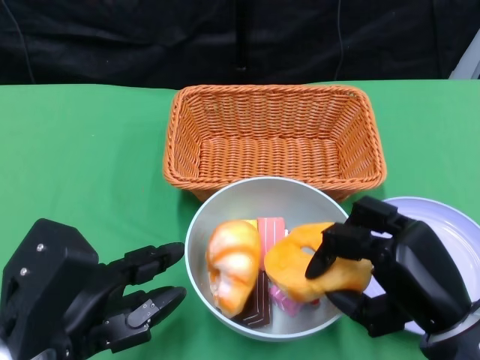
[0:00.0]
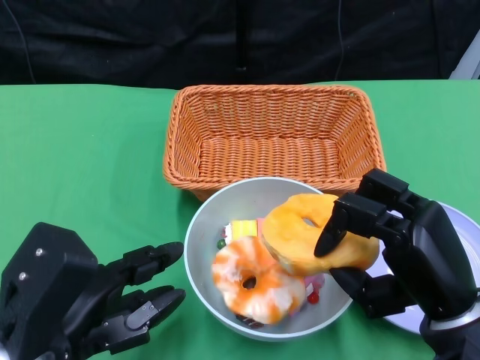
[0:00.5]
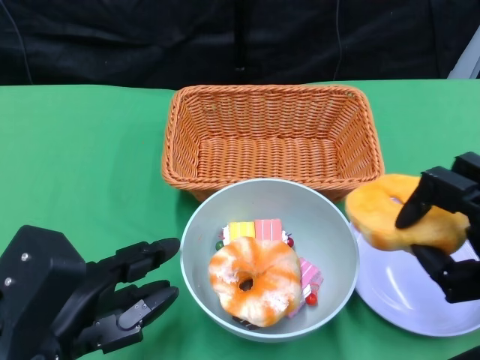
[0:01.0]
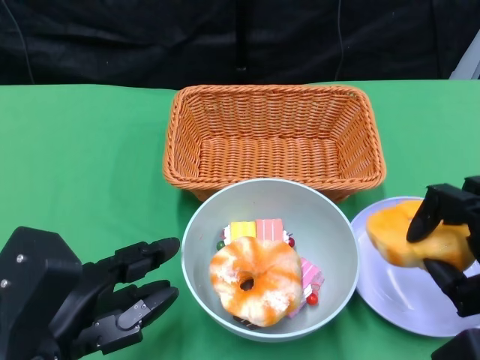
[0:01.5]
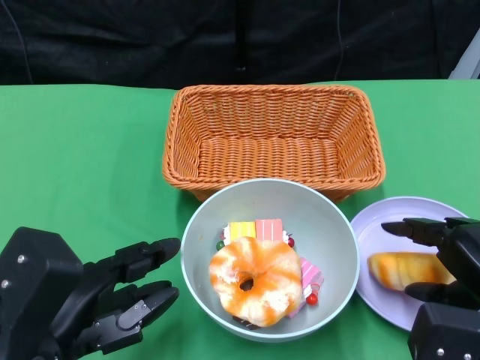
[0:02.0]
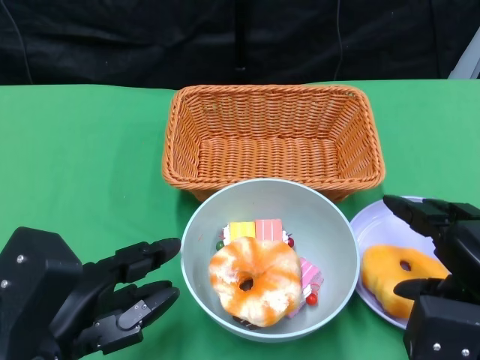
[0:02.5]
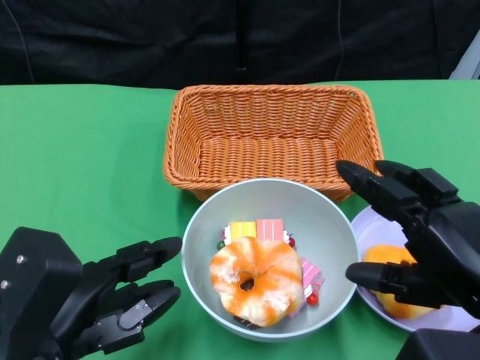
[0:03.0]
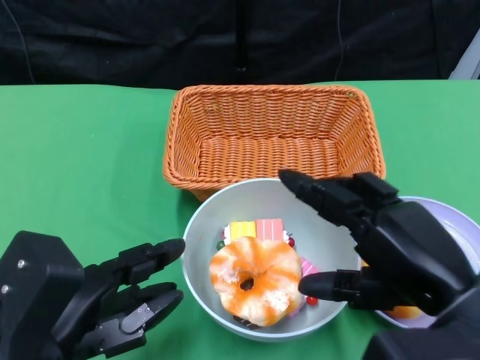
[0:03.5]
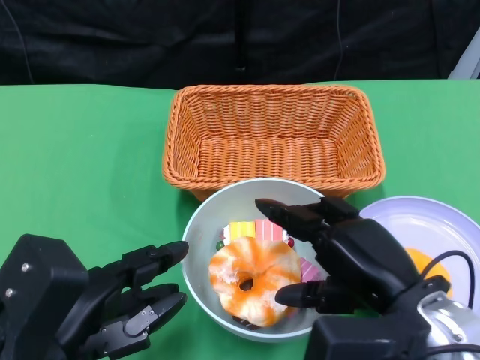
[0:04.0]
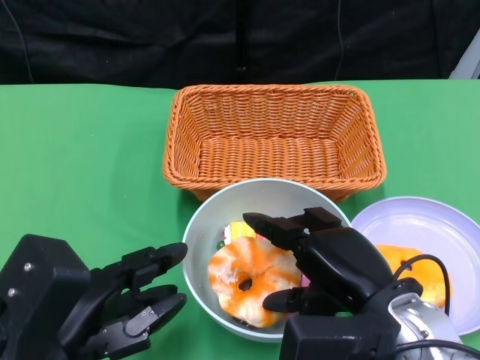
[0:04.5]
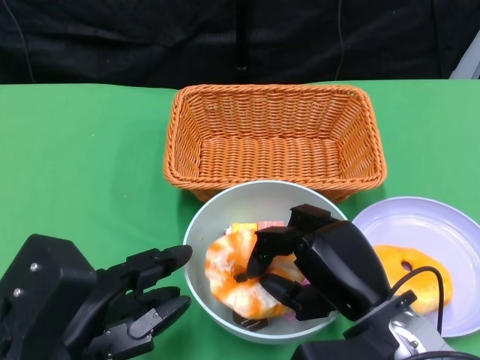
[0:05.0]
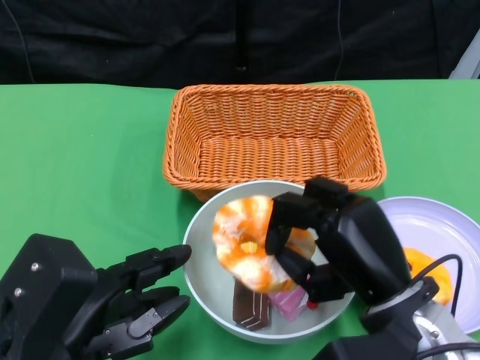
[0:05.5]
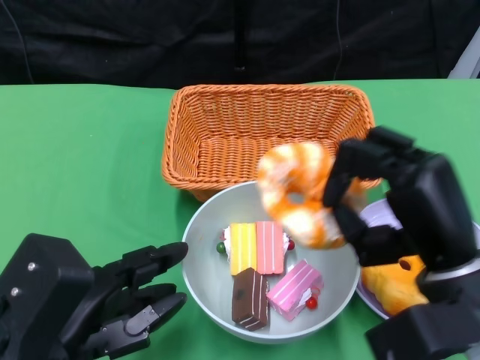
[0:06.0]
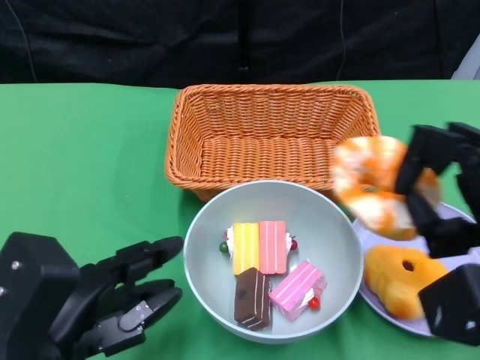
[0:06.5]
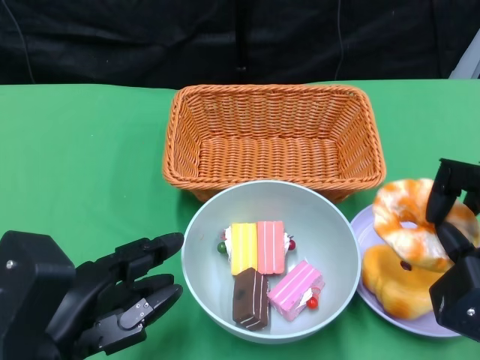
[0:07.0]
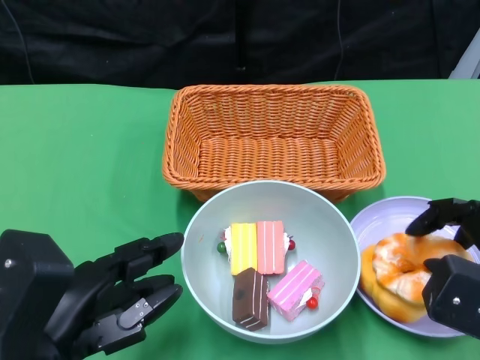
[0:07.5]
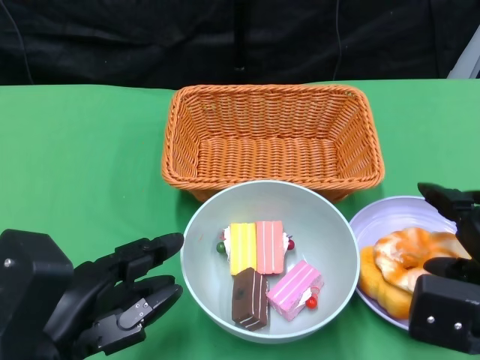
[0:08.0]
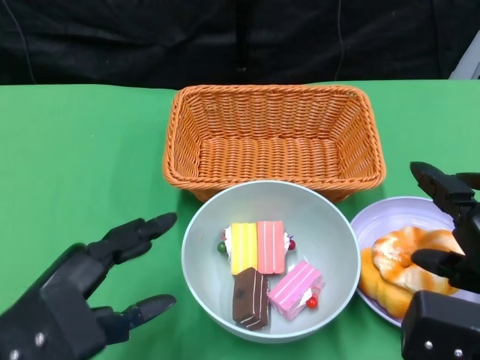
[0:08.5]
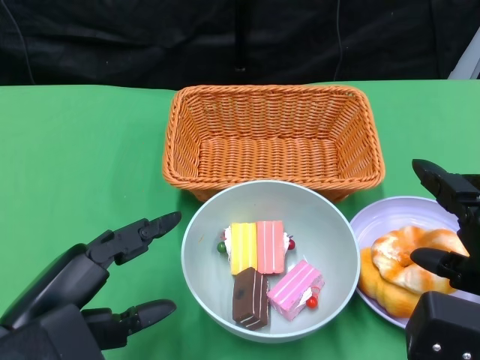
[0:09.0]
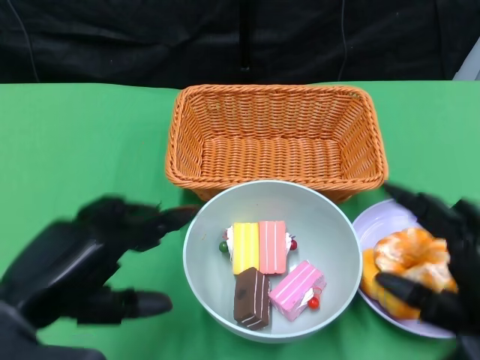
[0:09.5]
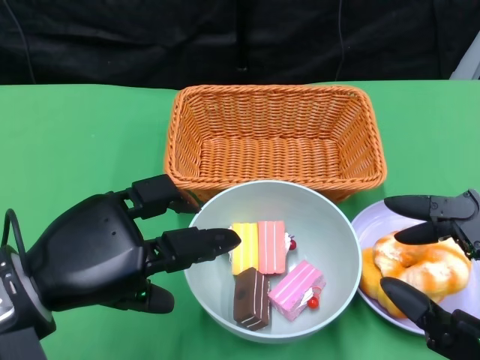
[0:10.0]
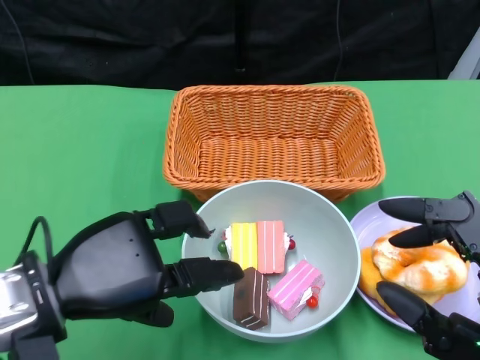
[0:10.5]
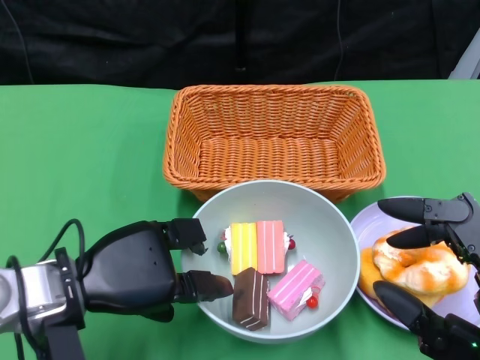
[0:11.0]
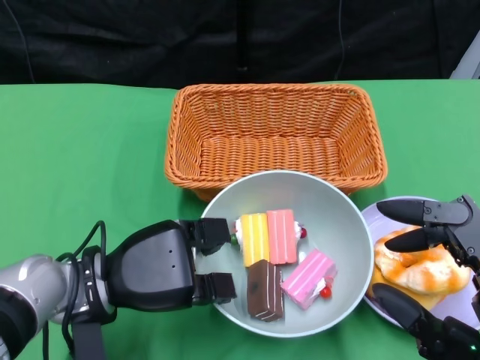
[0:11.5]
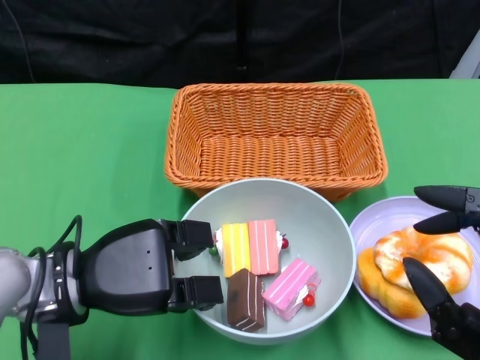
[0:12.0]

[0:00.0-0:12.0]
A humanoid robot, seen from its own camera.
Step, 0:00.0 to 0:02.0: Pick up the bread with the right gripper and place it on the plate.
Step, 0:03.0 to 0:08.0: Pick up the bread with the right gripper and place it on the plate.
Step, 0:08.5 to 0:11.5: Grasp the bowl with the left gripper.
0:00.0 to 0:02.0: The right hand goes about 5 cm to the right.
0:02.0 to 0:04.0: The right hand is displaced to the left by about 10 cm.
0:06.0 to 0:08.0: The right hand heads to the right, covering some 10 cm.
0:08.0 to 0:10.0: The left hand shifts by some 5 cm; the right hand moves backward, about 10 cm.
0:10.0 to 0:12.0: The left hand heads downward and forward, covering roughly 10 cm.

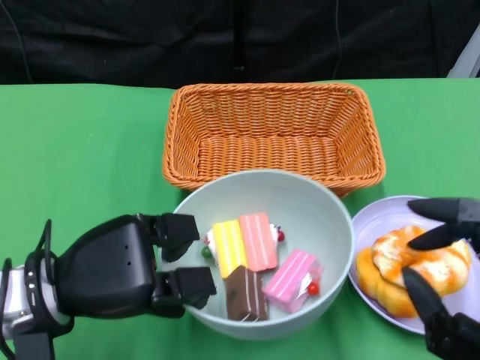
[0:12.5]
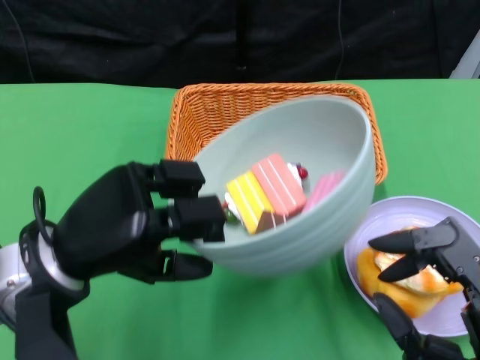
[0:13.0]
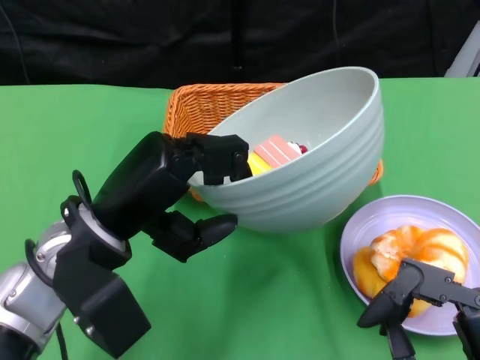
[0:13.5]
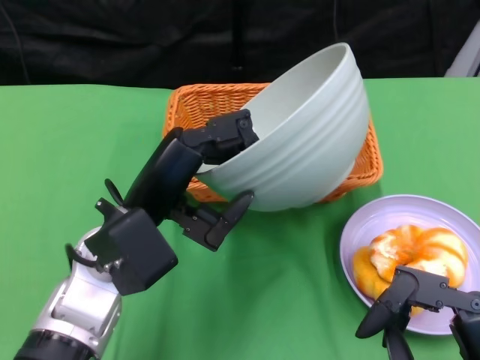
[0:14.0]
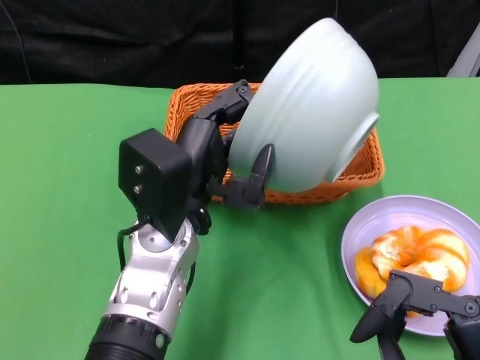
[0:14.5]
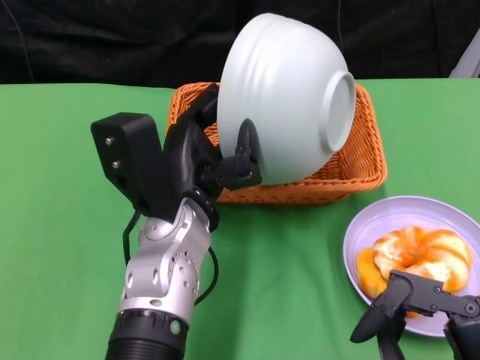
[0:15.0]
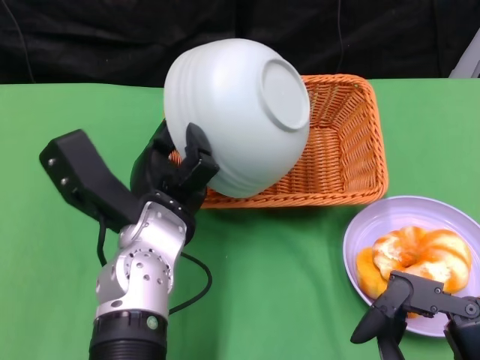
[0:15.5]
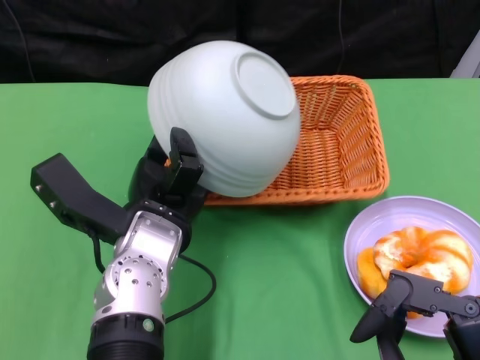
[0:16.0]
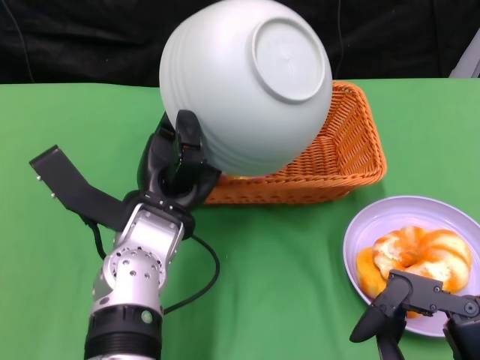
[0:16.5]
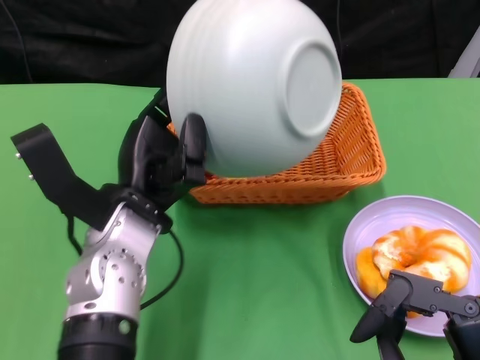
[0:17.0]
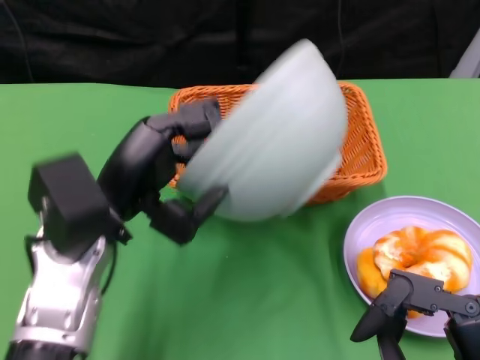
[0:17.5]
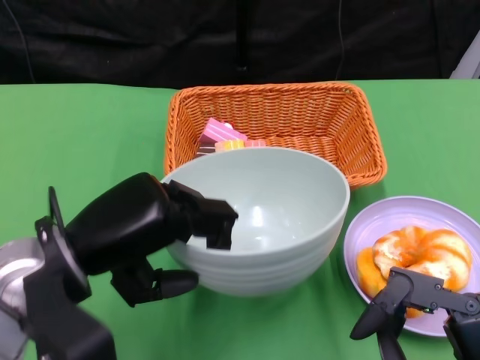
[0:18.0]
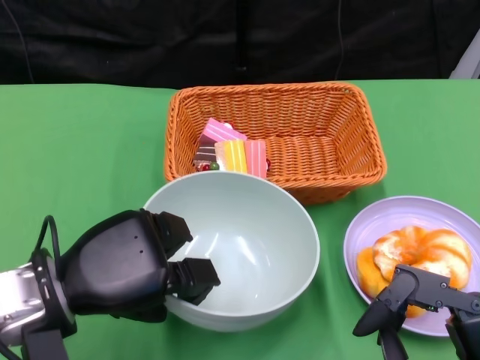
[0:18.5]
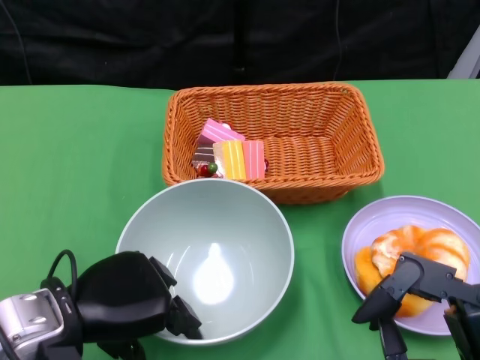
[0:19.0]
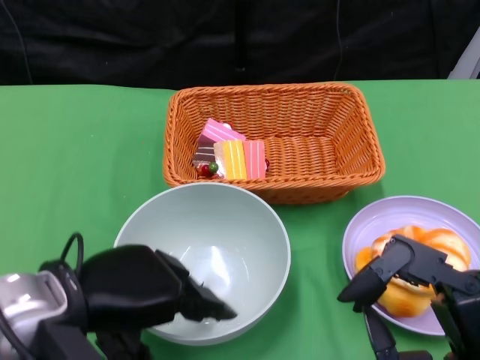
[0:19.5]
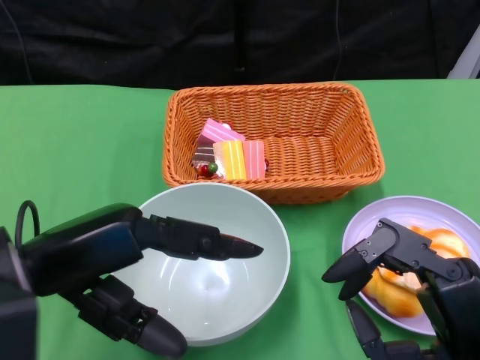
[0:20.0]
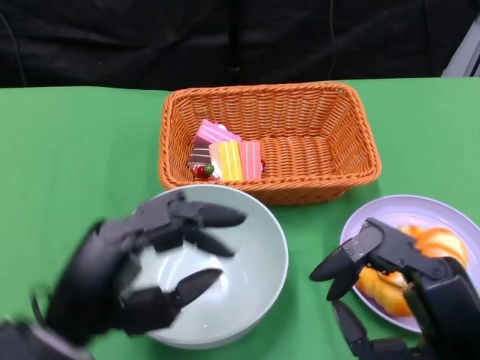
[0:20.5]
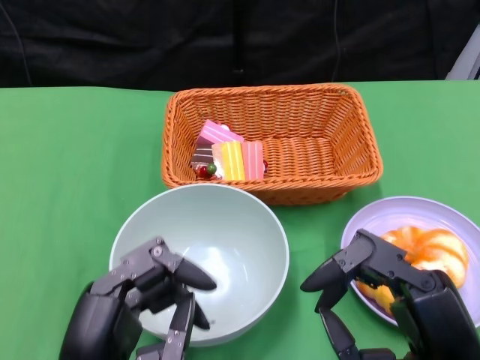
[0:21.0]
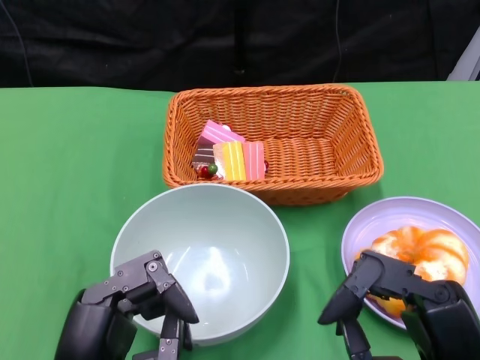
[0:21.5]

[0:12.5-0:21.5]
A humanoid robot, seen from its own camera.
Step, 0:12.5 to 0:16.5: Pour the cake into the basket with the left gripper.
Step, 0:17.0 to 0:19.5: Place the bowl on the table with the left gripper.
0:12.5 to 0:14.5: The left hand heads to the right, covering approximately 10 cm.
0:17.0 to 0:19.5: The left hand goes about 10 cm backward and to the left.
0:19.5 to 0:21.5: The left hand is displaced backward by approximately 10 cm.

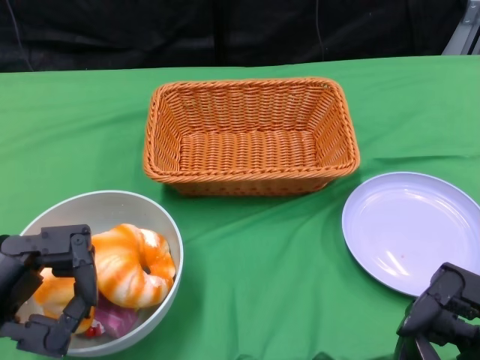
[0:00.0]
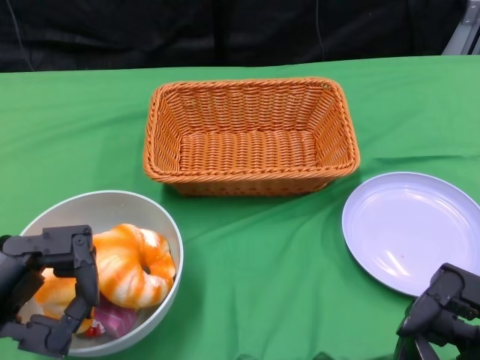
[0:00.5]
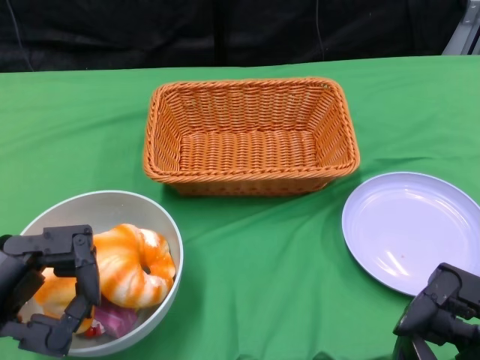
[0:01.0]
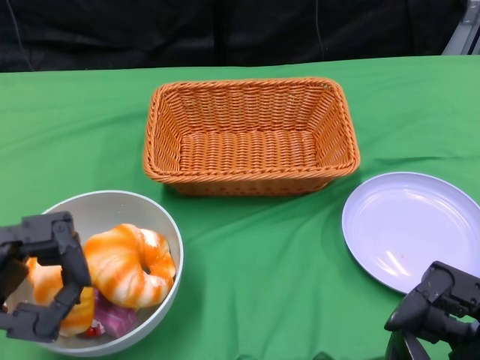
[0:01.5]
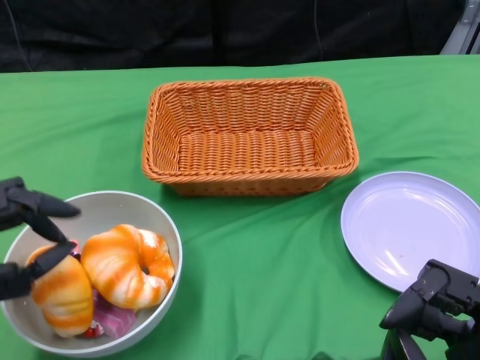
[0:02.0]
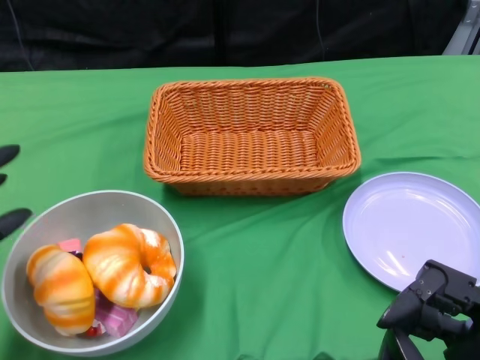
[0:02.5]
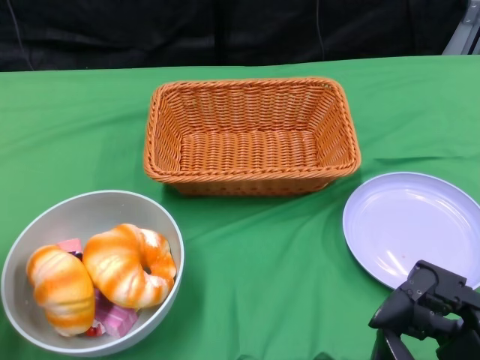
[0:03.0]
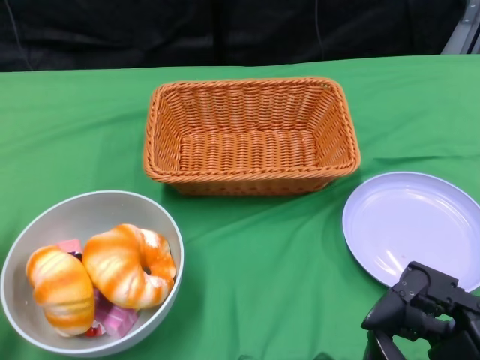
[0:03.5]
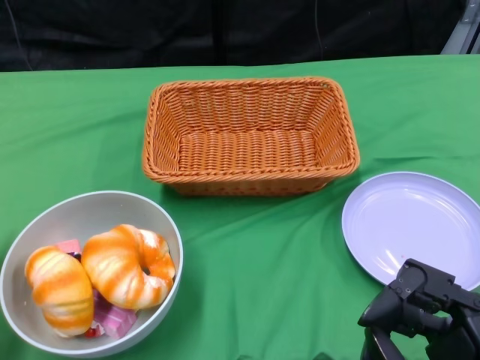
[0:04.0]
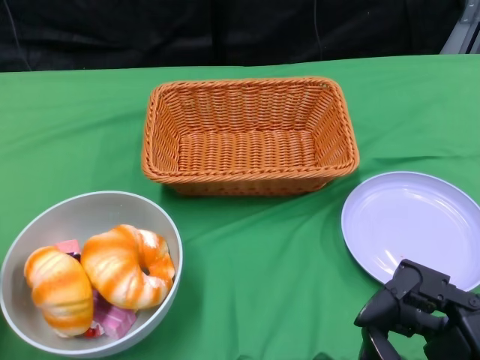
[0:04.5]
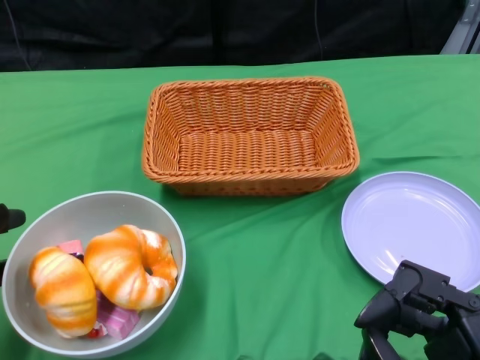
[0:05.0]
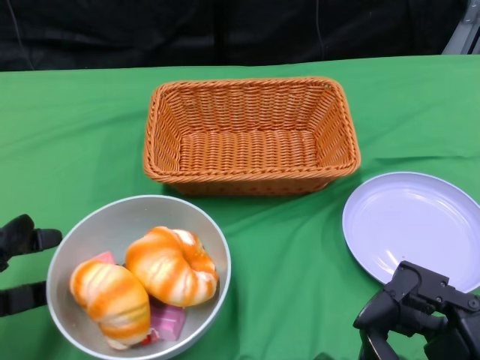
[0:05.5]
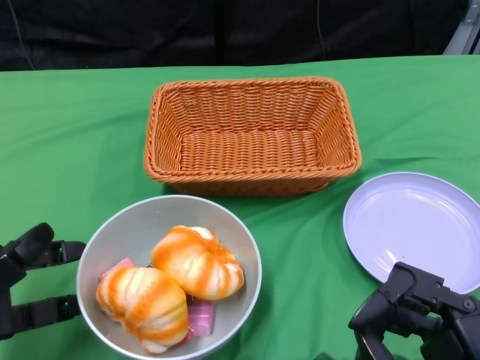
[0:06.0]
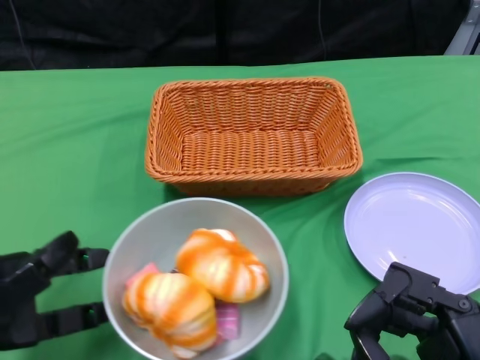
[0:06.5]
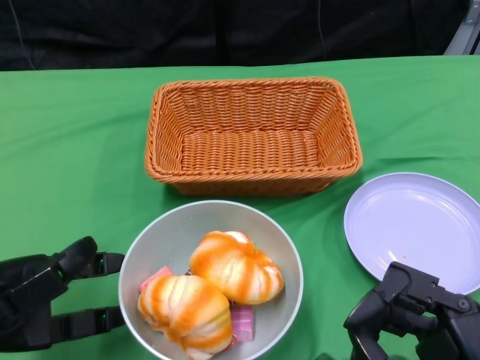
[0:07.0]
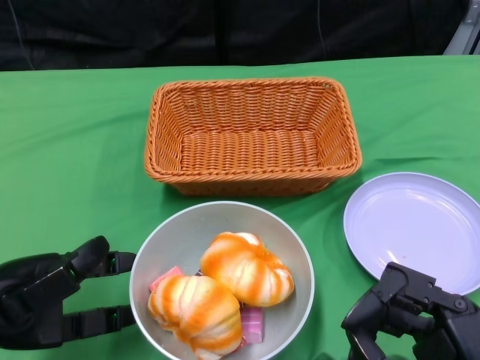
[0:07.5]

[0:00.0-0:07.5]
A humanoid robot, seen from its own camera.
0:02.0 to 0:04.0: The left hand travels to the left by roughly 5 cm.
0:05.5 to 0:07.5: The left hand goes roughly 5 cm to the right.
